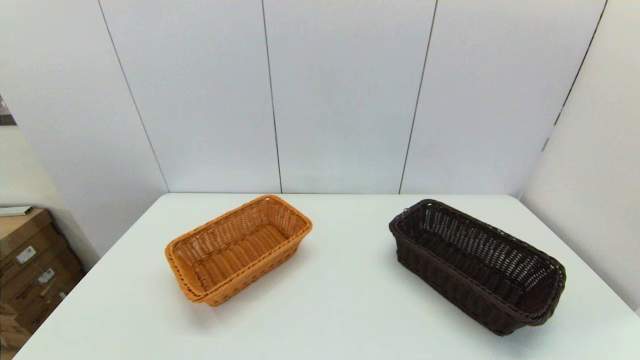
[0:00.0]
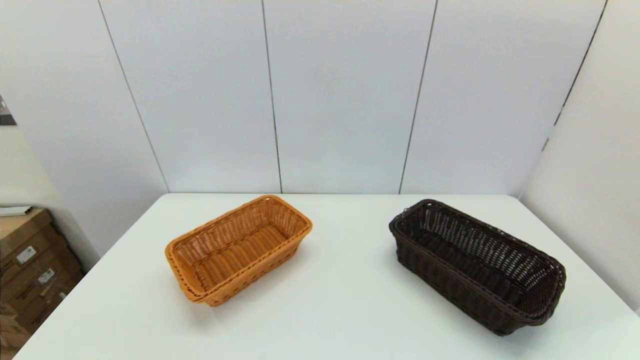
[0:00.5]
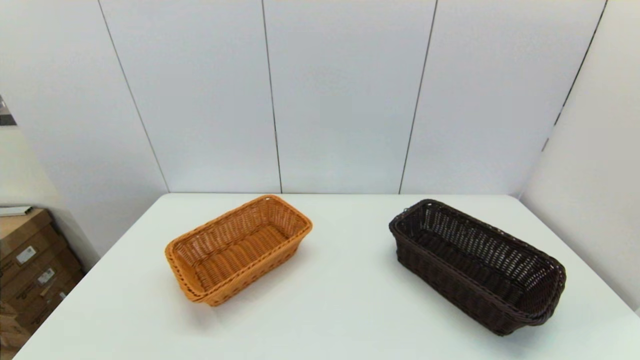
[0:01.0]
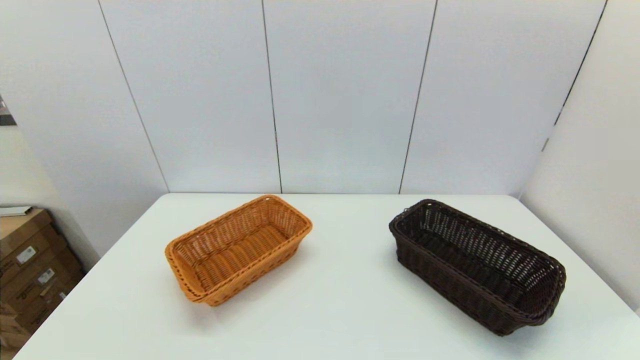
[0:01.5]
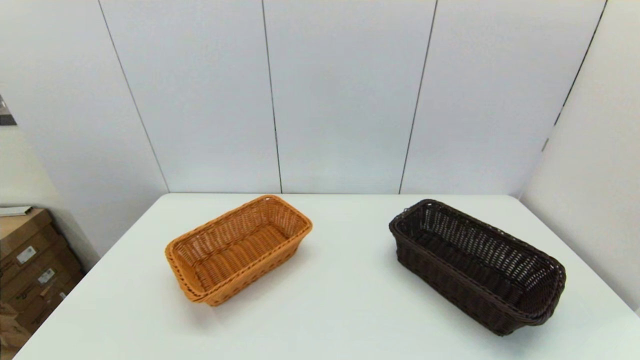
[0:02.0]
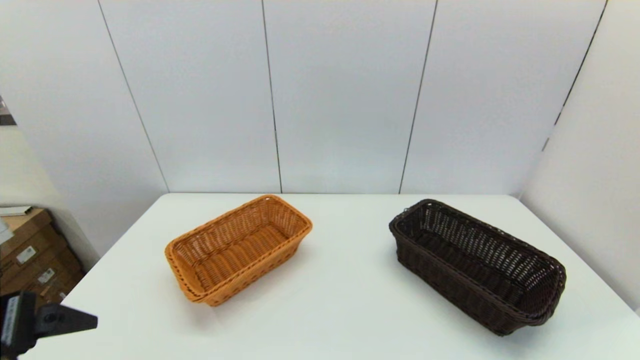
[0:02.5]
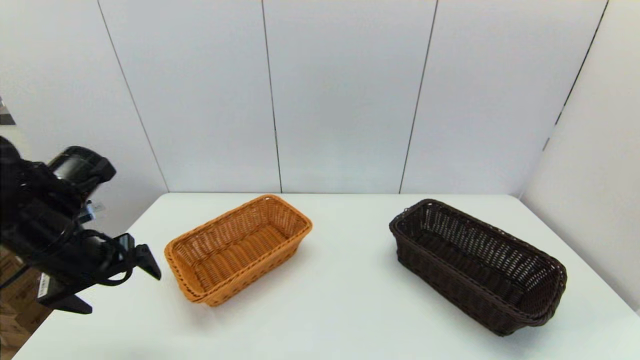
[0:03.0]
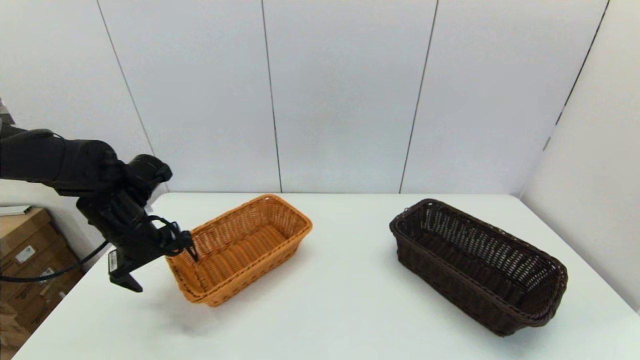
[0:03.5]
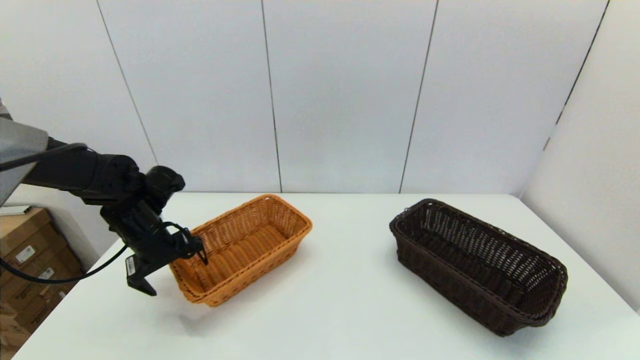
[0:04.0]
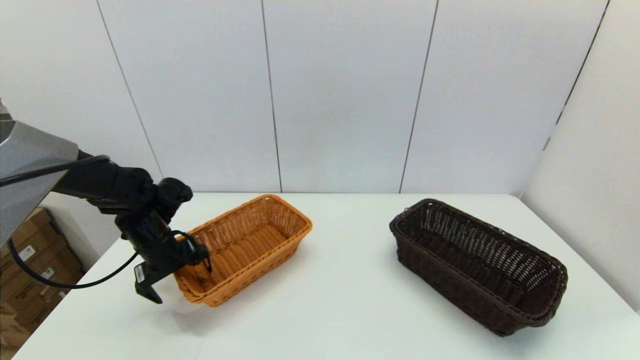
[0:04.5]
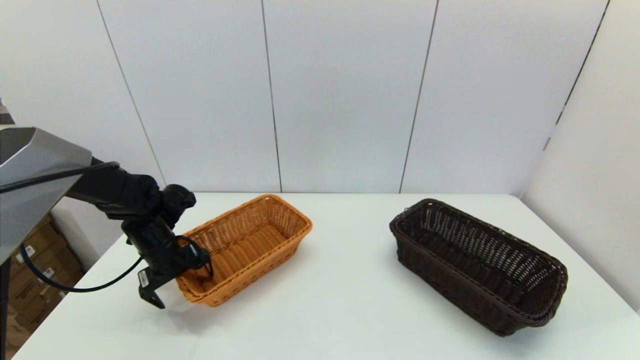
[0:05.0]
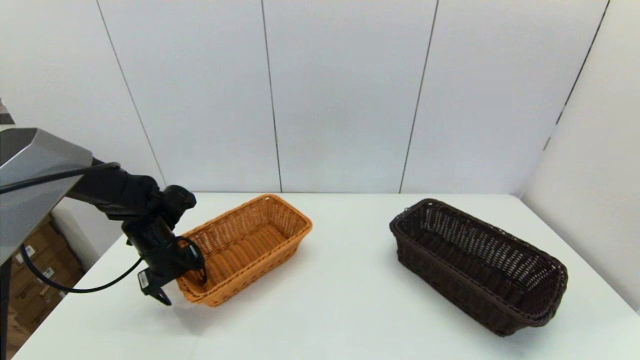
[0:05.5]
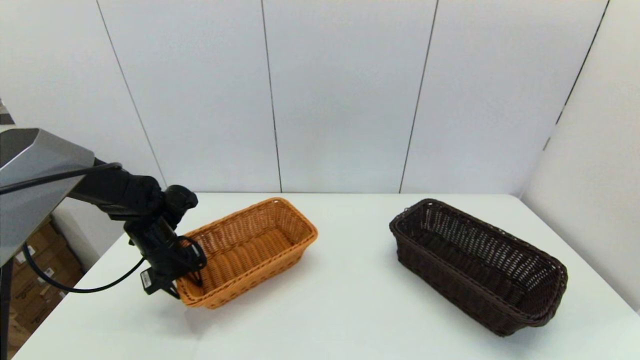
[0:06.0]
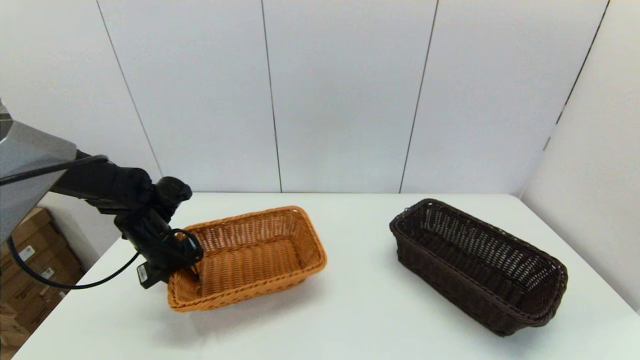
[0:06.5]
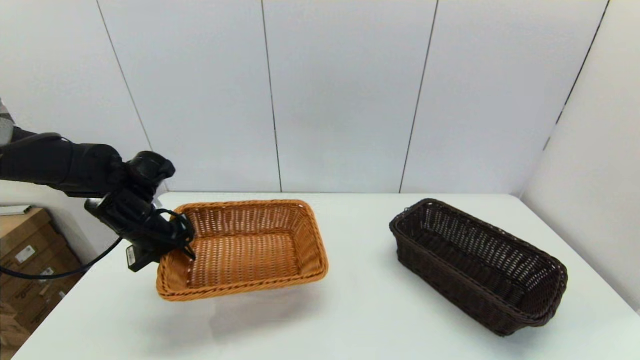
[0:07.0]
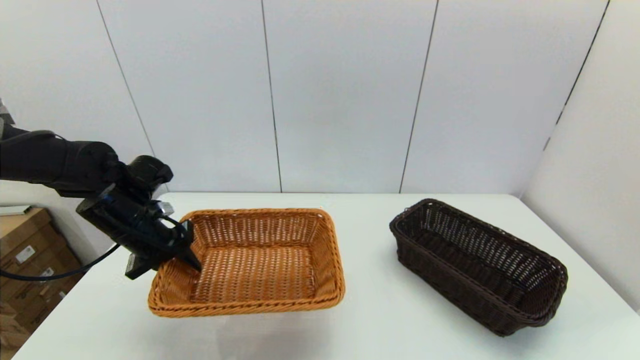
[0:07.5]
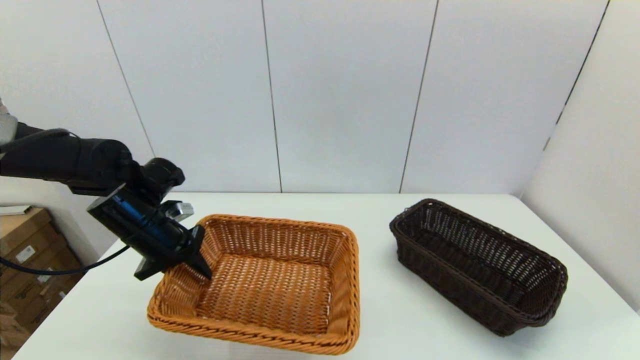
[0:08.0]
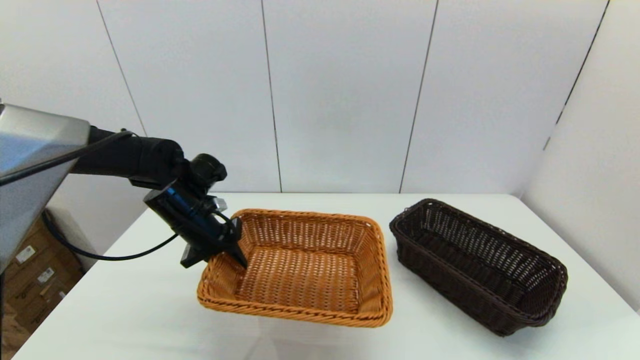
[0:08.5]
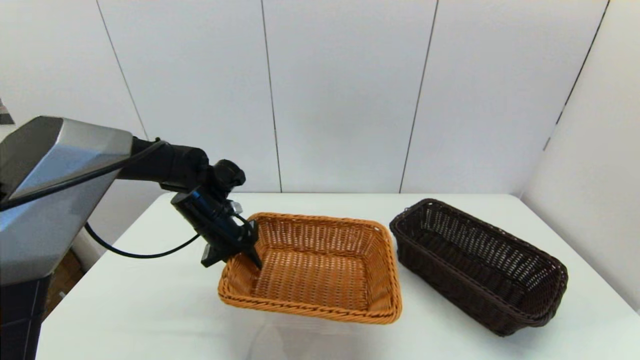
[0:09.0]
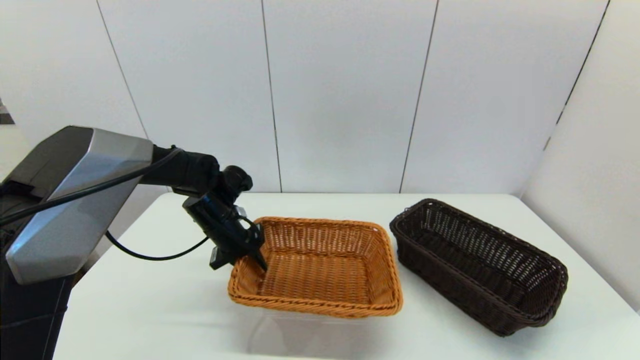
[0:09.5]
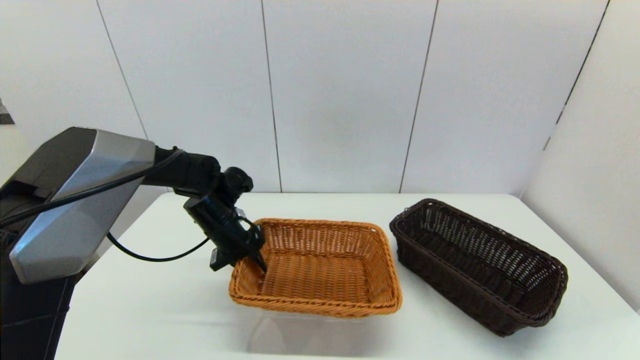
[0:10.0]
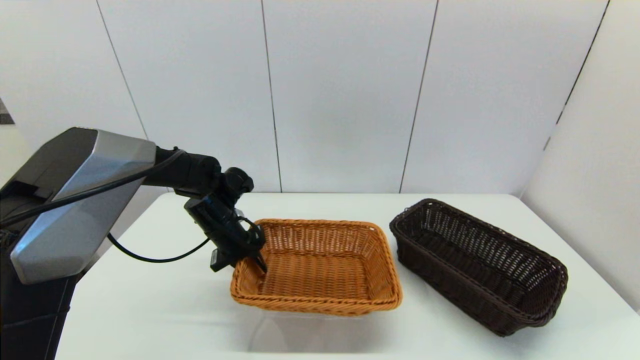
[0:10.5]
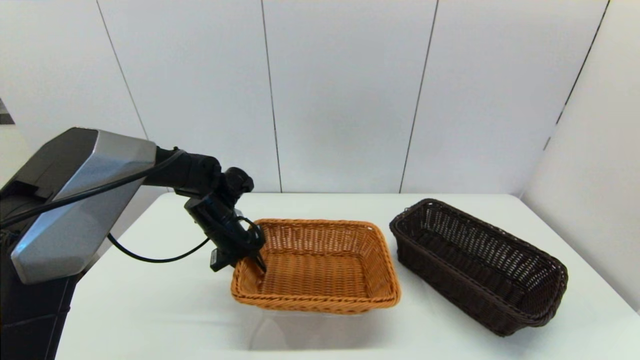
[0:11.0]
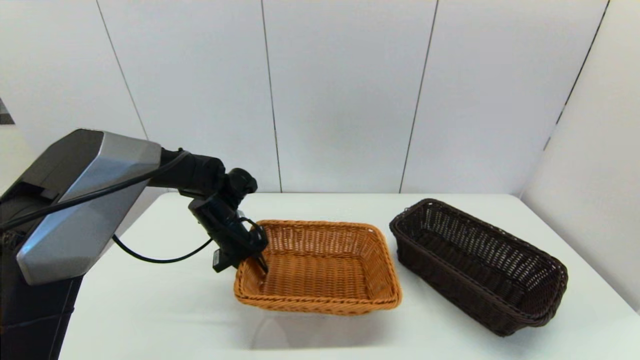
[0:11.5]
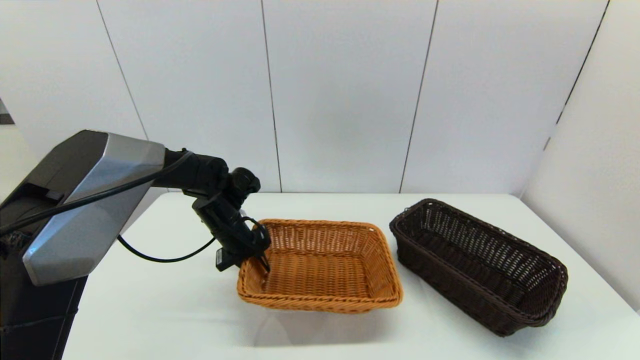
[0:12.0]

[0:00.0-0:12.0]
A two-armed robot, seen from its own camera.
Task of the whole recording: stack a basket on top of another basket.
Step, 0:02.5 to 0:05.5: Grasp the light basket with the left gripper.
0:02.0 to 0:04.0: The left gripper heads forward, covering roughly 40 cm.
0:04.0 to 0:06.0: The left gripper closes its fingers.
0:06.0 to 0:08.0: The left gripper shifts some 10 cm upward.
0:08.0 to 0:10.0: The left gripper shifts some 10 cm to the right, forward and downward.
0:10.0 to 0:12.0: Both grippers stay put.

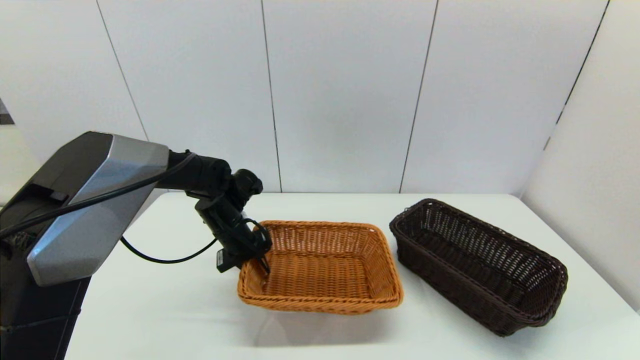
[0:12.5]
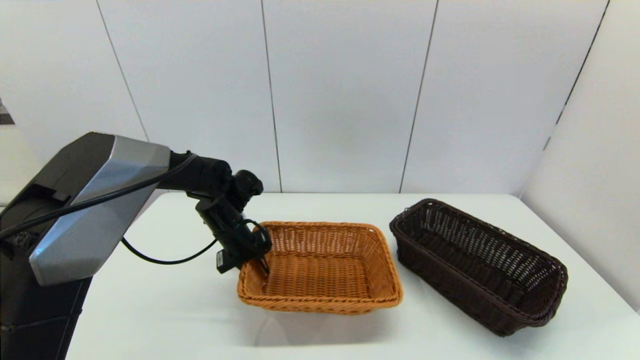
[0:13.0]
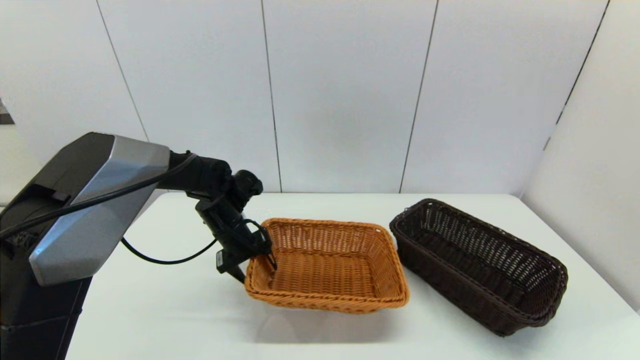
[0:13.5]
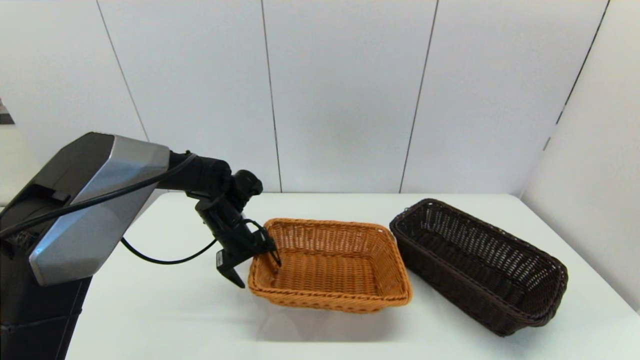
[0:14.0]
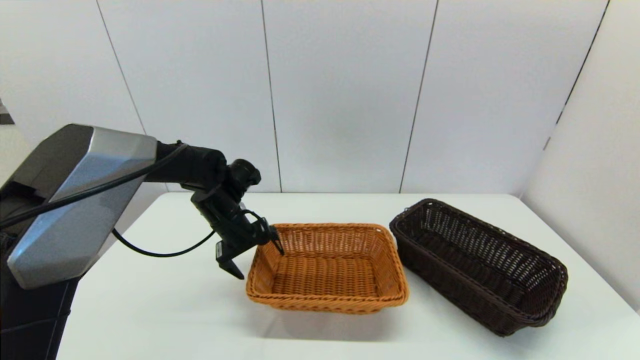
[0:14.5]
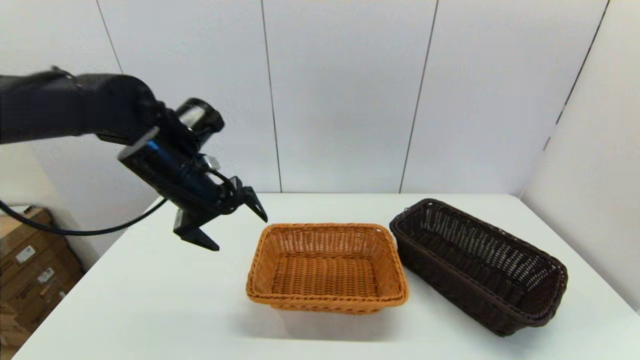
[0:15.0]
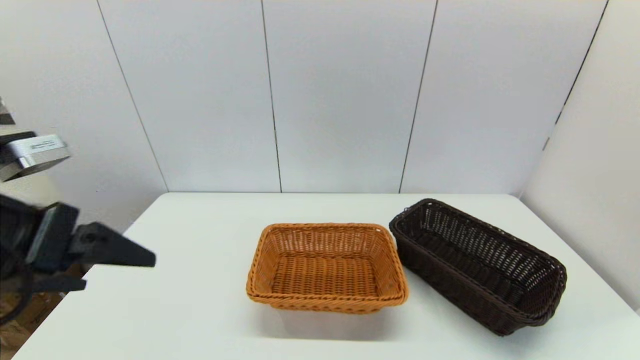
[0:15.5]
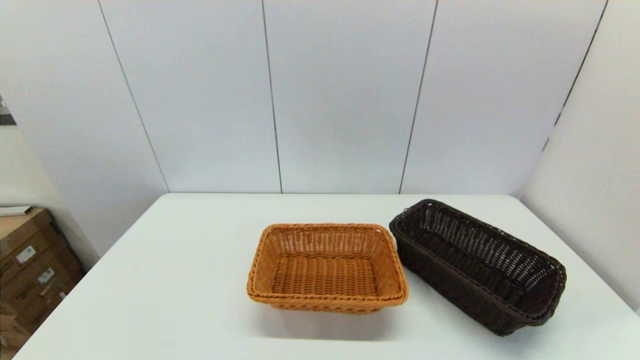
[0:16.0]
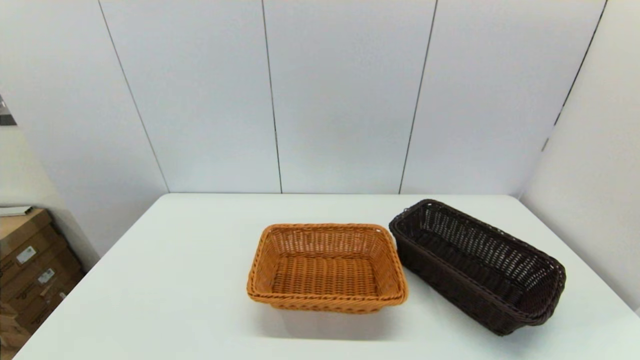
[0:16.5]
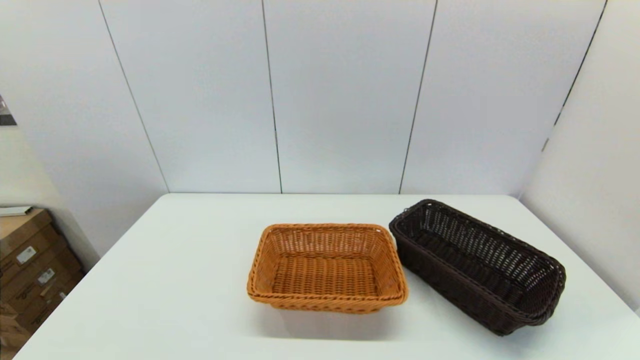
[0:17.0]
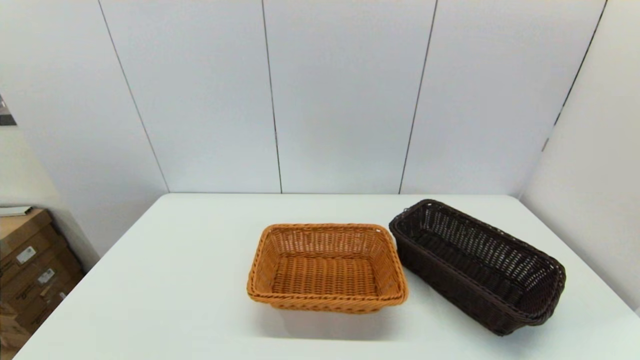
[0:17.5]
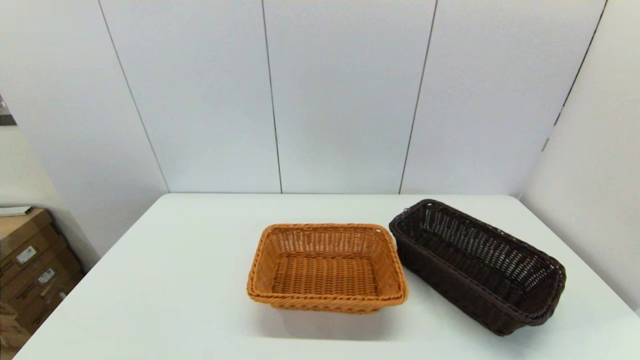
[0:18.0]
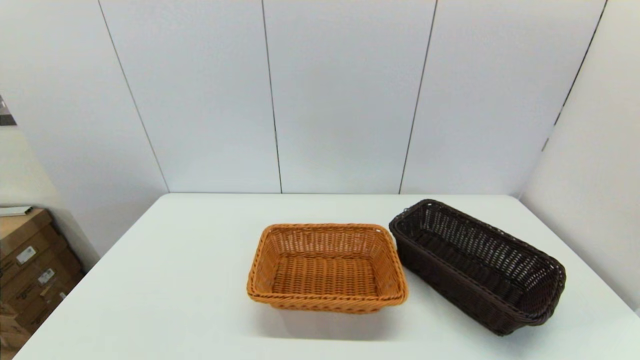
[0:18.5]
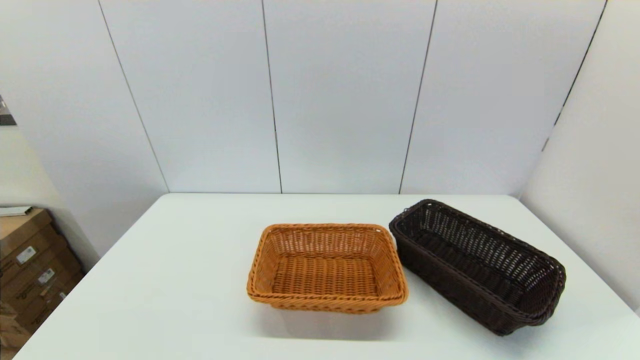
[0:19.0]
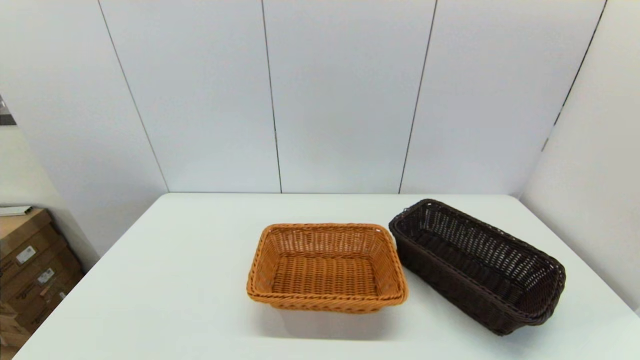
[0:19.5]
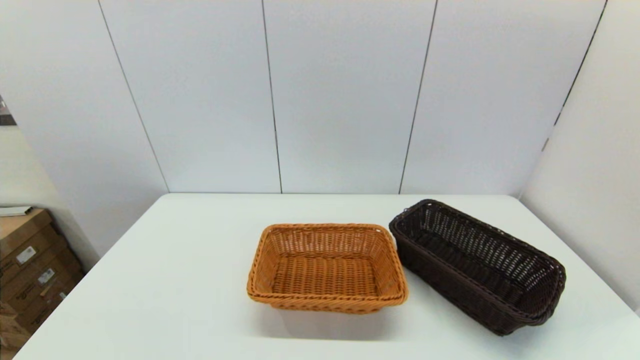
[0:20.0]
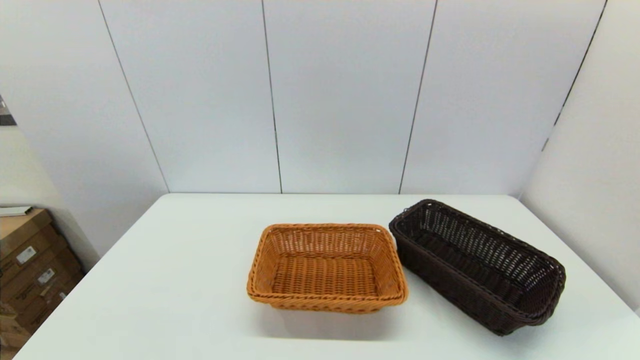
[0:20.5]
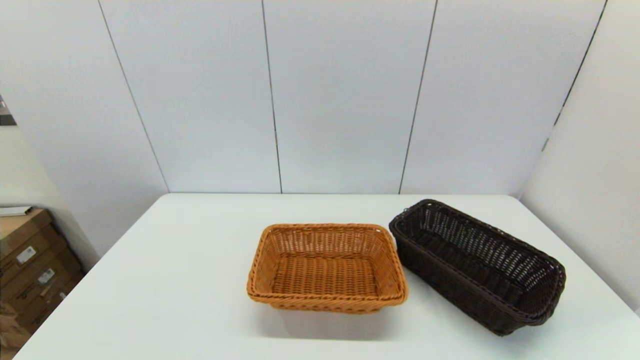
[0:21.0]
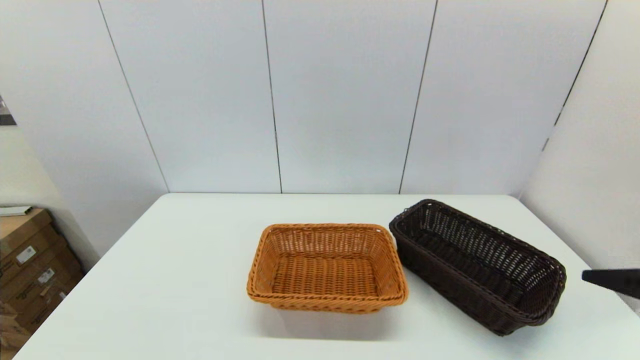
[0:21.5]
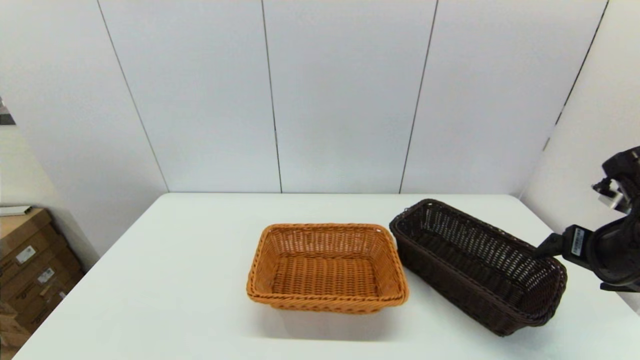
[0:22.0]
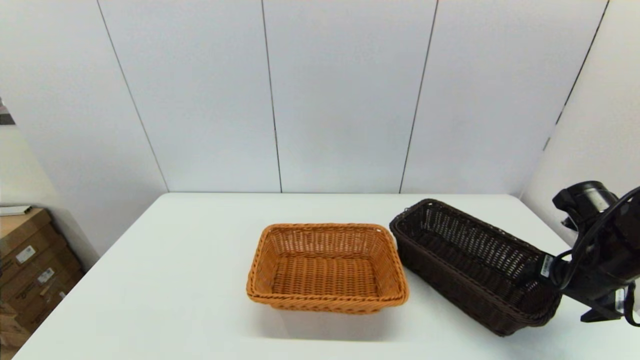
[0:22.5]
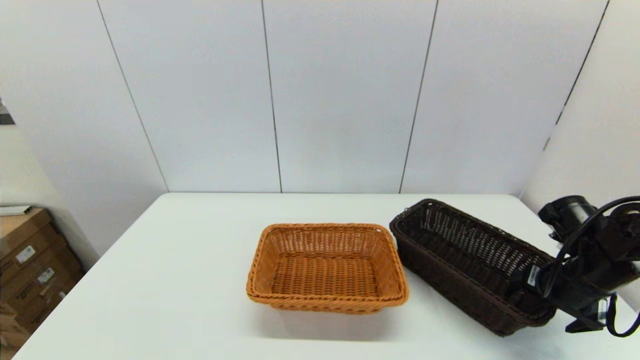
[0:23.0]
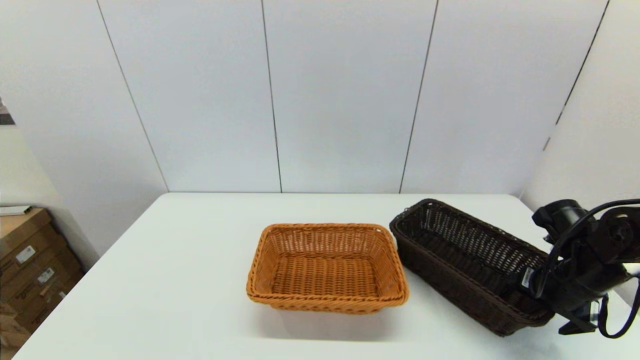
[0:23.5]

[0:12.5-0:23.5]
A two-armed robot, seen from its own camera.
Task of the whole recording: stack a basket on top of another basket.
Step, 0:12.5 to 0:15.0: Place the light basket on the middle of the table with the left gripper.
0:12.5 to 0:14.5: The left gripper opens.
0:14.5 to 0:16.0: The left gripper goes approximately 40 cm backward and upward.
0:21.5 to 0:23.5: The right gripper is displaced forward and downward by roughly 20 cm.
